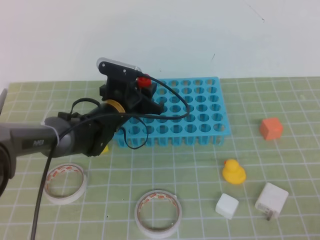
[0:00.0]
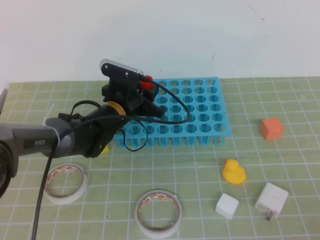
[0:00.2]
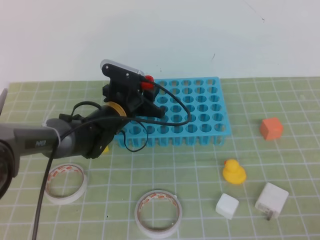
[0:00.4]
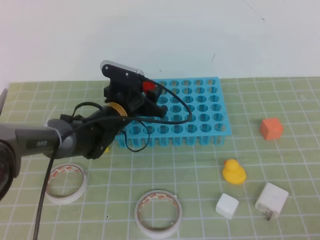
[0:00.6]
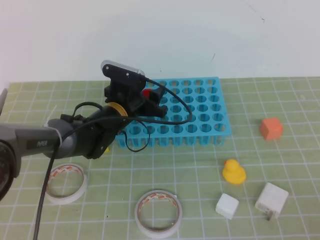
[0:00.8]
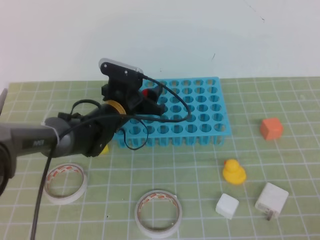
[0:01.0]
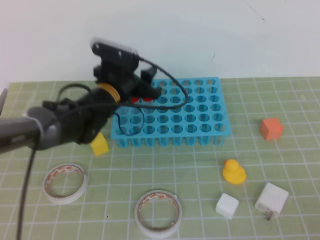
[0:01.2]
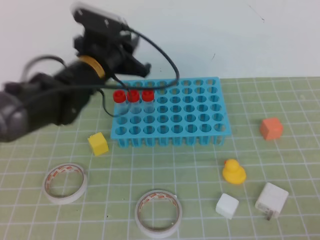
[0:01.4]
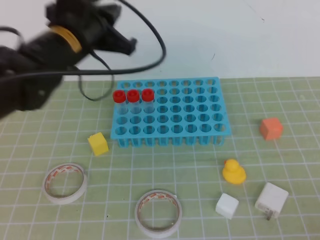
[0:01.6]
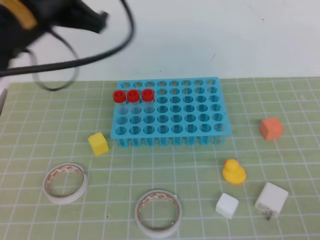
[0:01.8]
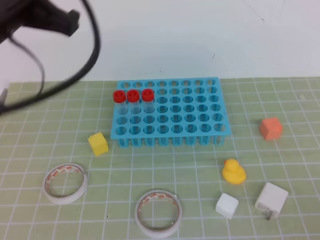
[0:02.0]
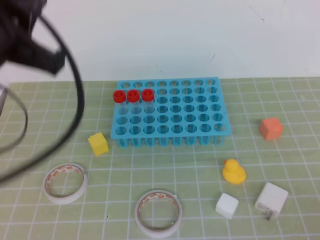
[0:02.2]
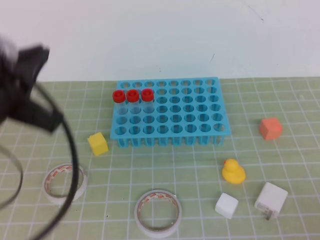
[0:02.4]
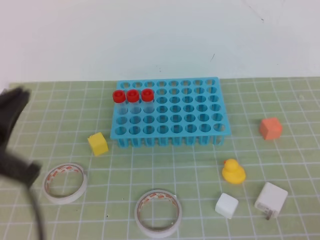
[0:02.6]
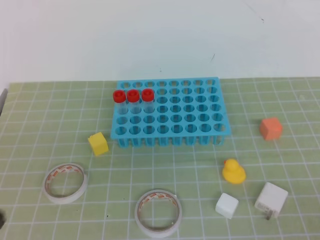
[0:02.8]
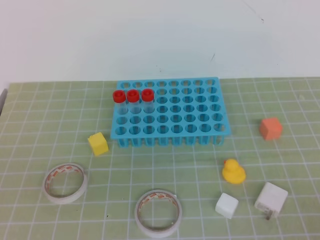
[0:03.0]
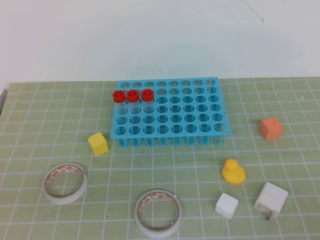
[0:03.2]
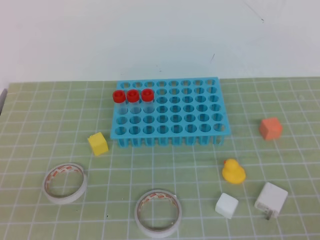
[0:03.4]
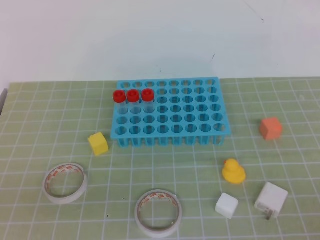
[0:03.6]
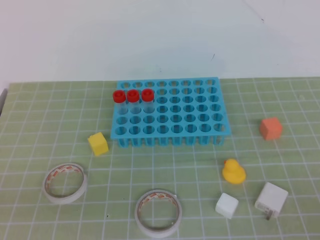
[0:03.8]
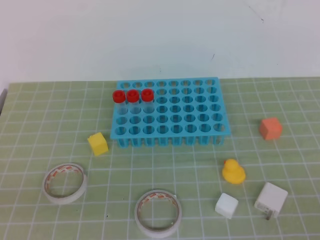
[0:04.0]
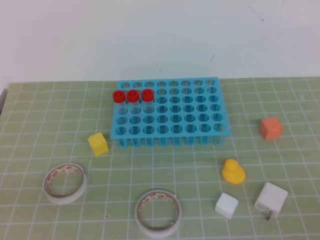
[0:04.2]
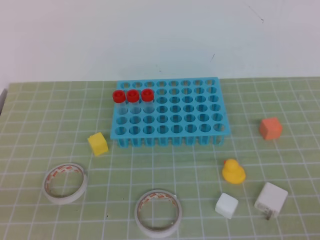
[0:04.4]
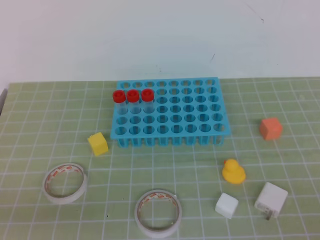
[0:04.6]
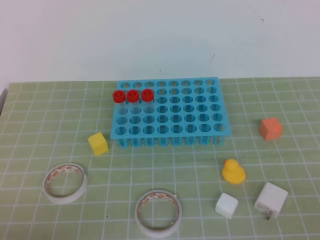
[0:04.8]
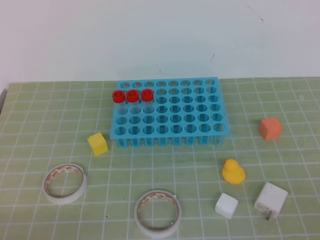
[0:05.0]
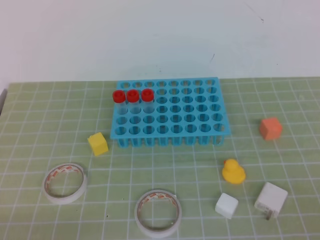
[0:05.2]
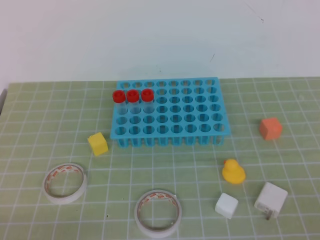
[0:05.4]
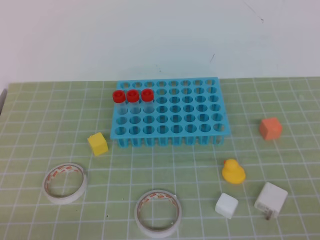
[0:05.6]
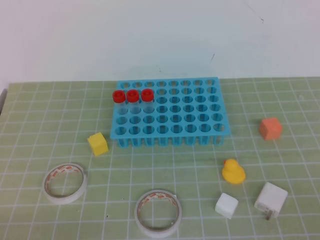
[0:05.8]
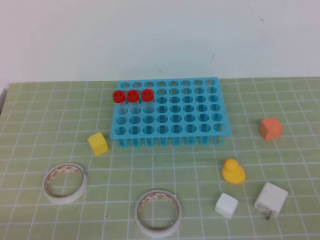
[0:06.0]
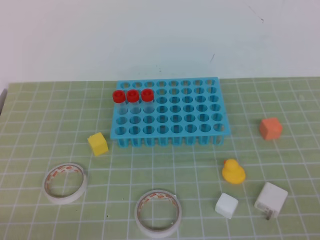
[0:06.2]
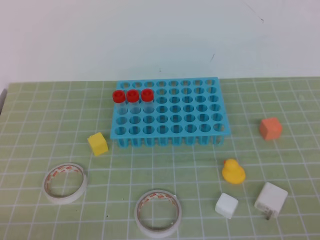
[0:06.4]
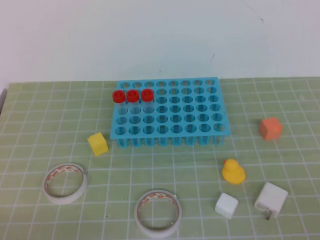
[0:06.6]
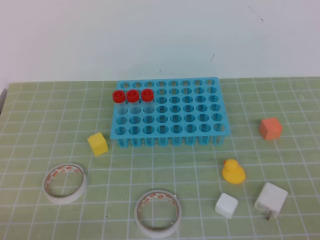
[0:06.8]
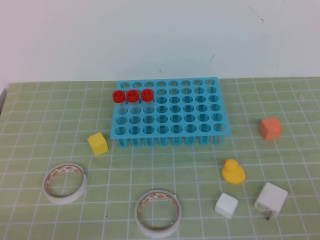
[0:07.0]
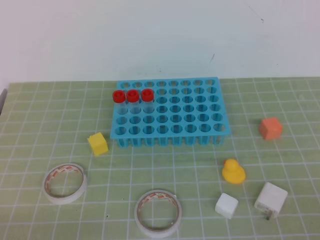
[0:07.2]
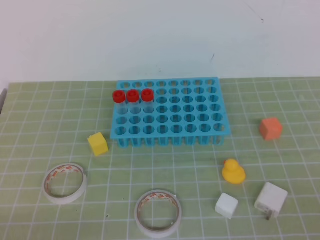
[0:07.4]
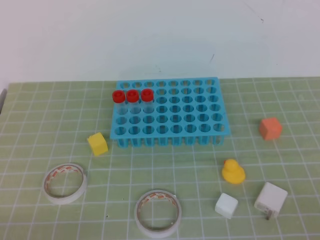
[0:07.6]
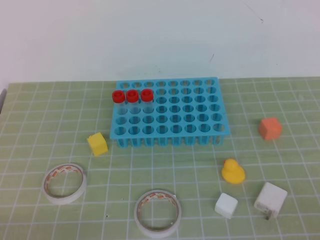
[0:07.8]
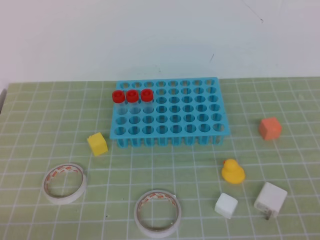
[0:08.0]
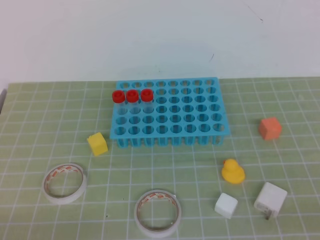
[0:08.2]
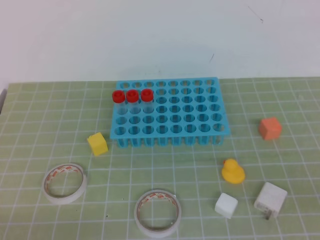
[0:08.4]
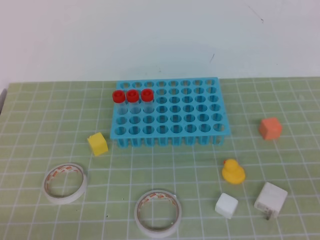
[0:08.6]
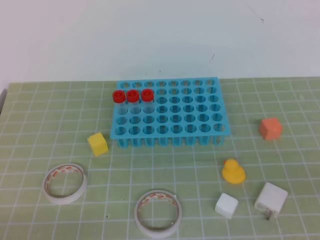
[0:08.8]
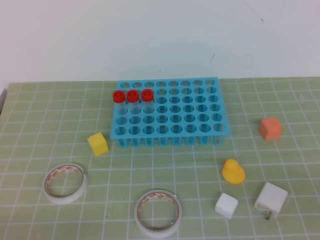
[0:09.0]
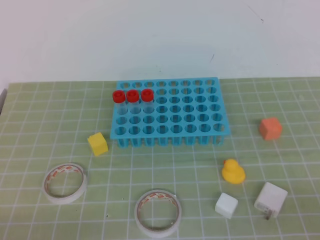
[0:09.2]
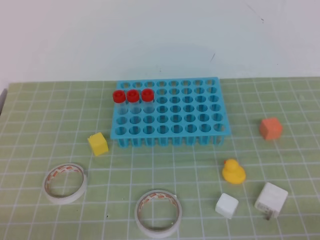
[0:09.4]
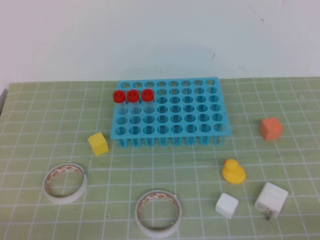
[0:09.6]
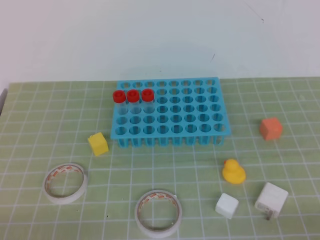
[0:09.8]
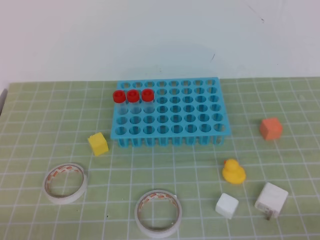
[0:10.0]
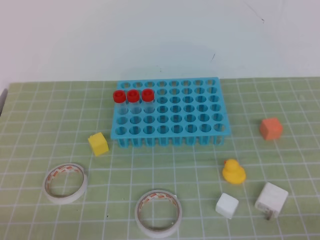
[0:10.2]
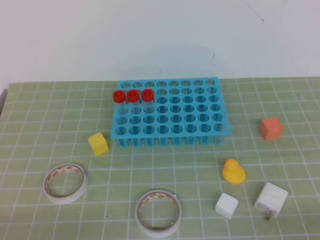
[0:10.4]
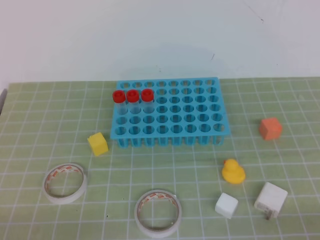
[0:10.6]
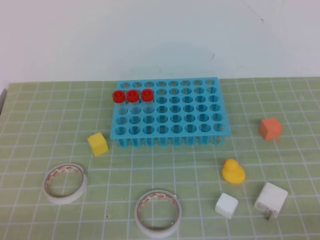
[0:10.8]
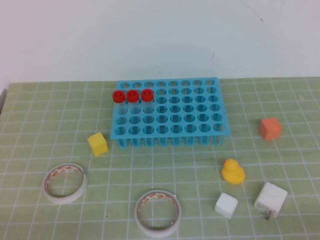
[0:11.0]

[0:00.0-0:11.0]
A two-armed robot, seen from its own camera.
0:00.0 to 0:01.6: The left gripper goes approximately 20 cm upward.
0:01.6 to 0:03.2: The left gripper heads backward and to the left, covering some 35 cm.
0:03.2 to 0:04.8: The left gripper shifts some 10 cm downward.

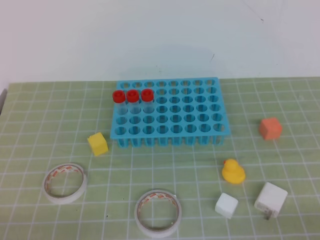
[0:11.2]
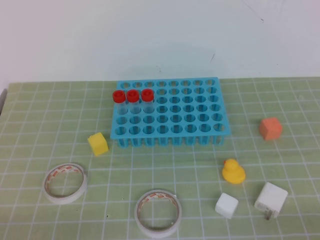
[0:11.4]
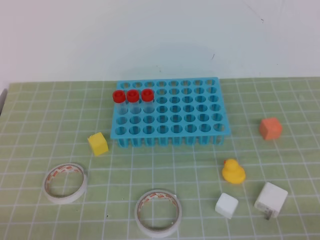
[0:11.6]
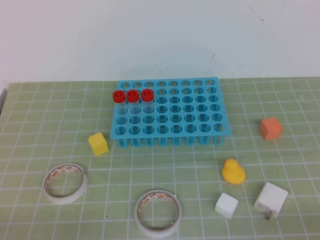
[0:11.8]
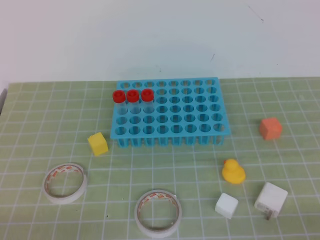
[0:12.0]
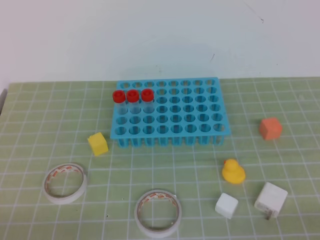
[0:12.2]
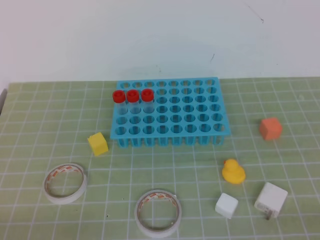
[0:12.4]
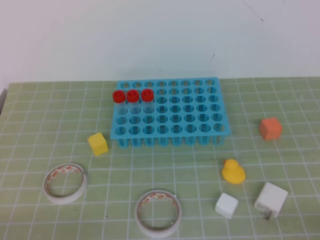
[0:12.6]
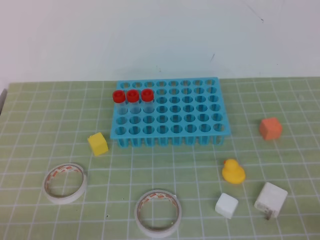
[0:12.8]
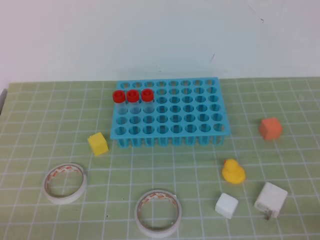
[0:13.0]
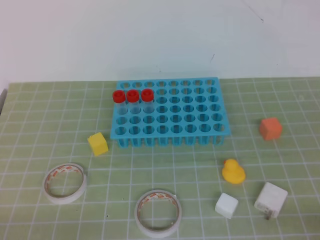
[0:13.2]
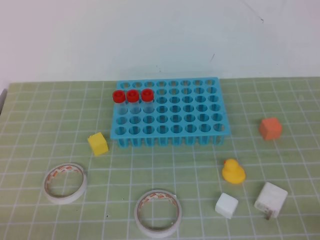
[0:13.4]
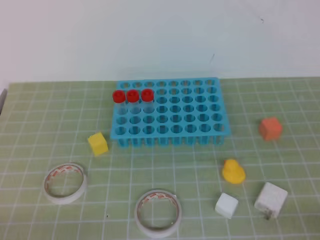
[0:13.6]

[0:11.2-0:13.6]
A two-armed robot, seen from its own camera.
0:11.2 to 0:13.6: Both grippers stay about where they are.

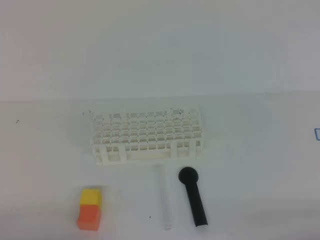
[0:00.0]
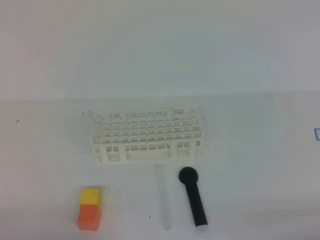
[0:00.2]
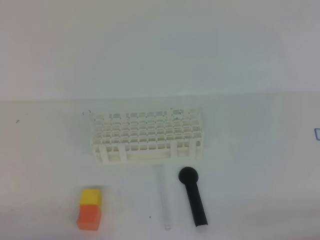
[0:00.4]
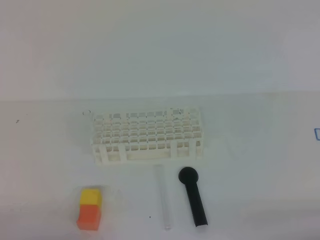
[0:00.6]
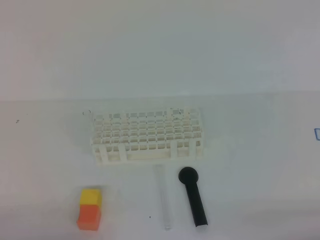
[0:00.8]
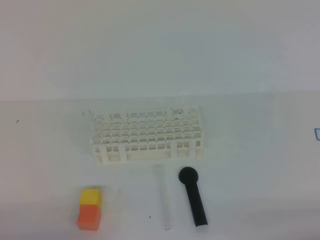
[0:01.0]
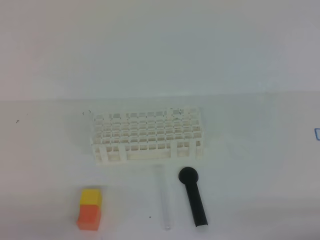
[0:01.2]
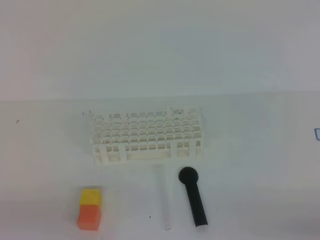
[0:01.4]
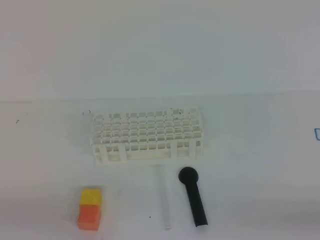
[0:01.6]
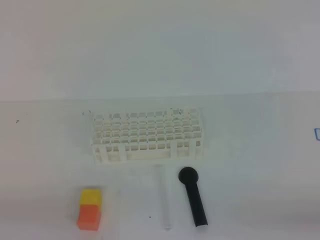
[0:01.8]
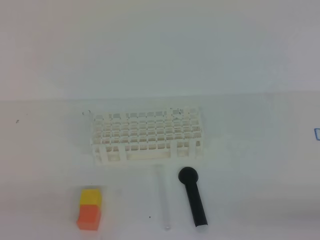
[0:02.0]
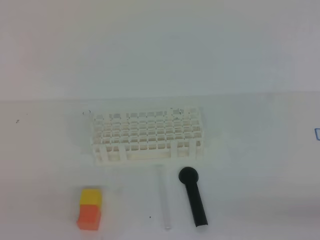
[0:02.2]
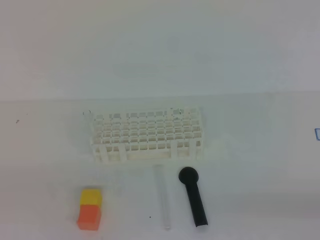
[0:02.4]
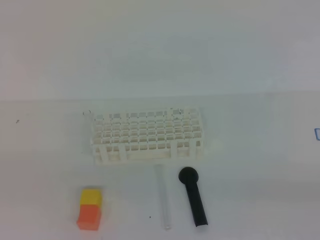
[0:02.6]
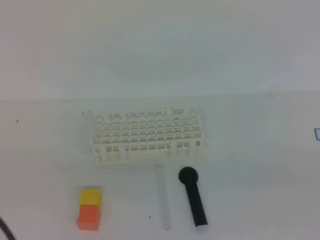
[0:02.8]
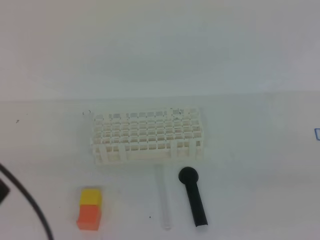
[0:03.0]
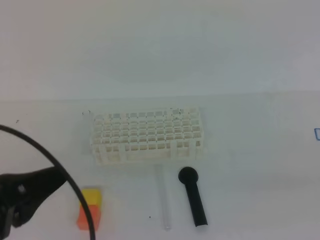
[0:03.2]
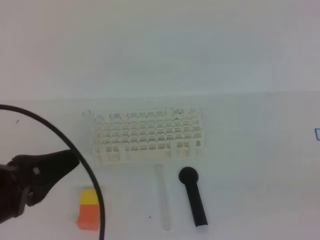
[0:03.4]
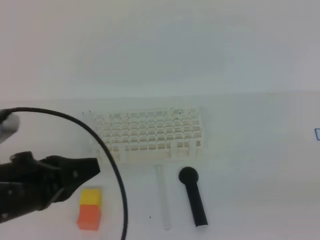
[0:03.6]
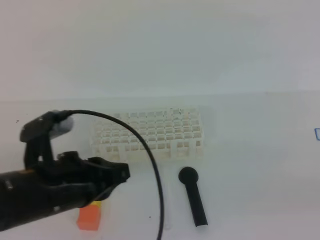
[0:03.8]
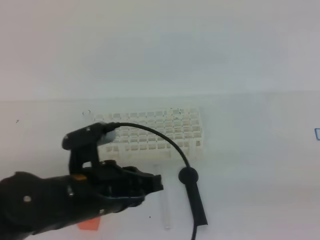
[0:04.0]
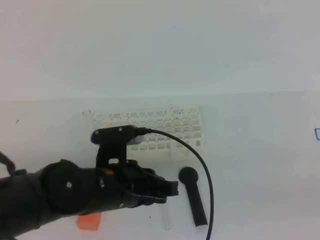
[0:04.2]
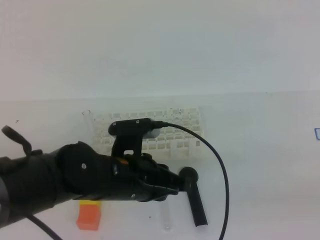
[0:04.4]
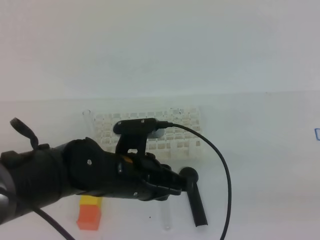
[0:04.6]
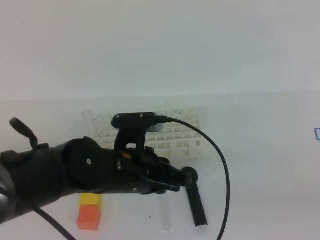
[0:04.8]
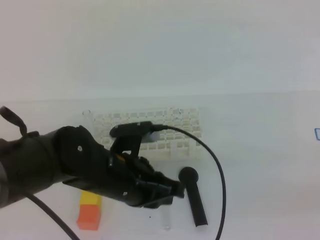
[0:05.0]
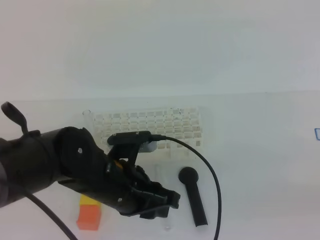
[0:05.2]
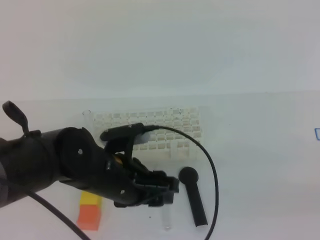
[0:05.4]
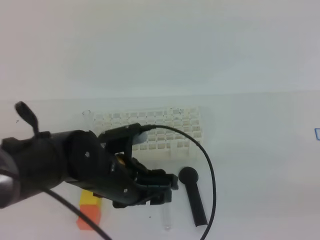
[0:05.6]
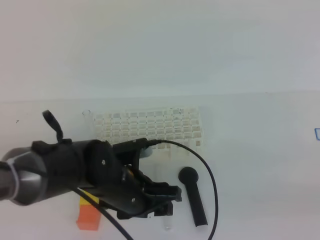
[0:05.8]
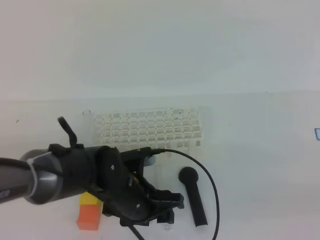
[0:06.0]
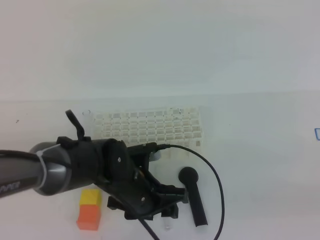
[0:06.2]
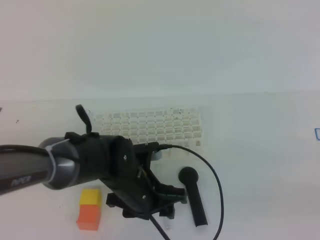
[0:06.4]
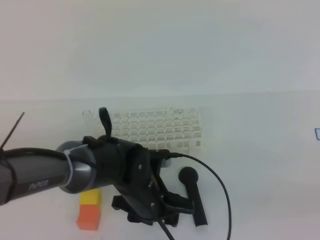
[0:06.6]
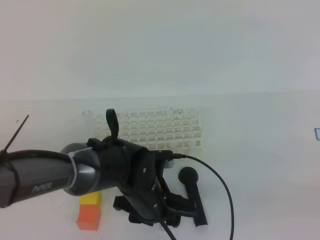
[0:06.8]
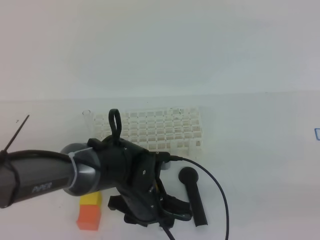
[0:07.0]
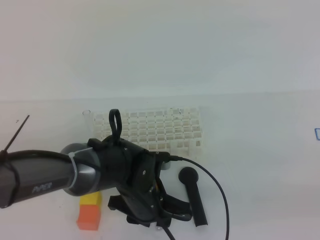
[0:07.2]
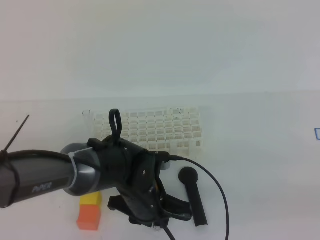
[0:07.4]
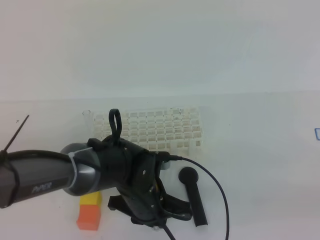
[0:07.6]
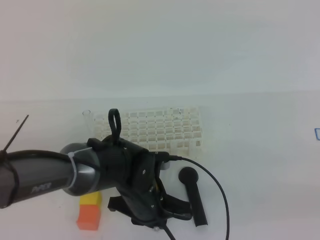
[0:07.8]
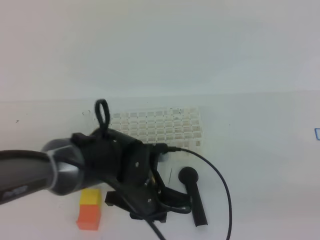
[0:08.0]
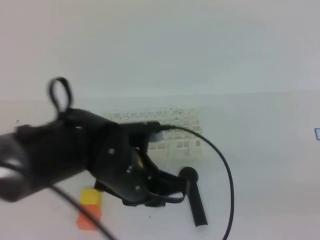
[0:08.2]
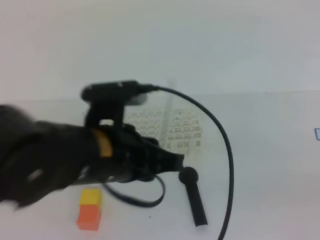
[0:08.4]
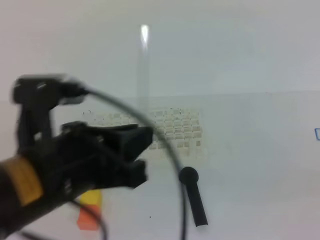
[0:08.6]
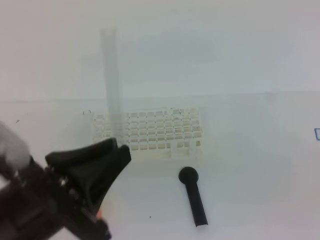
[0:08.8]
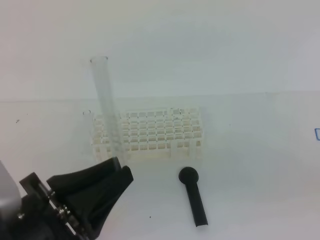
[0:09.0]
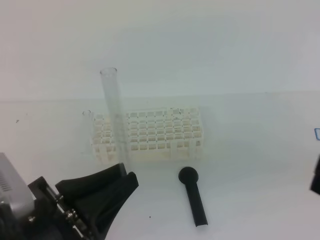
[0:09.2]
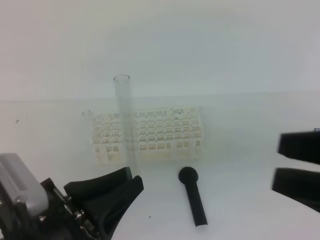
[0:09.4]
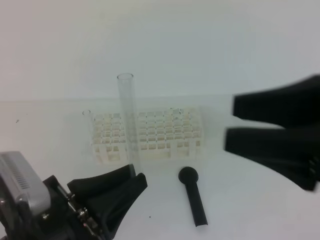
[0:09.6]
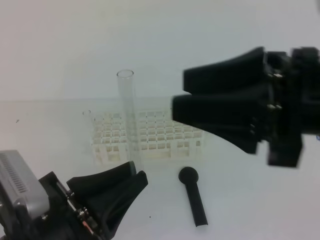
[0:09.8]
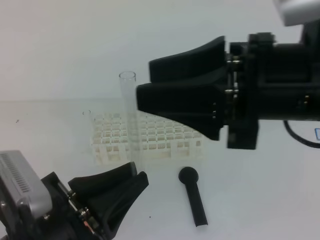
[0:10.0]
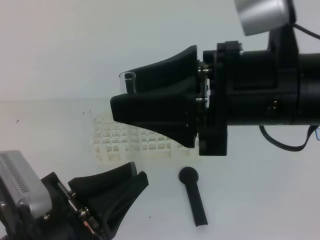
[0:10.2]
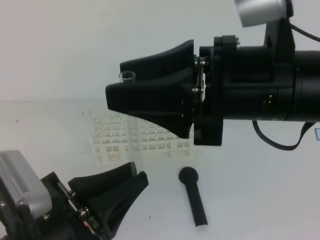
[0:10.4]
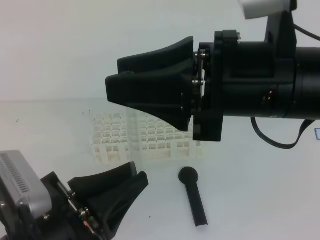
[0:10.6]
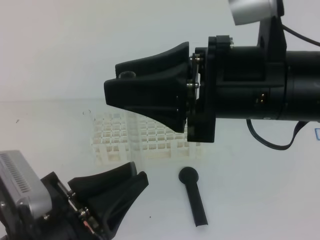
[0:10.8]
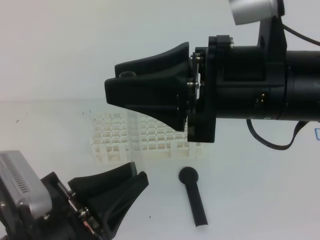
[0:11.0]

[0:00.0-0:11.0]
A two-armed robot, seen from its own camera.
0:01.6 to 0:03.2: The left gripper travels upward and forward by roughly 10 cm.
0:03.2 to 0:04.8: The left gripper moves to the right, forward and downward, approximately 20 cm.
0:04.8 to 0:06.2: The left gripper is displaced downward by about 5 cm, and opens up.
0:06.2 to 0:07.8: The left gripper closes up.
0:07.8 to 0:09.4: The right gripper moves to the left and forward, approximately 10 cm, and opens its fingers. The left gripper moves backward, to the left and upward, about 20 cm.
0:09.4 to 0:11.0: The right gripper moves to the left and forward, approximately 15 cm.
